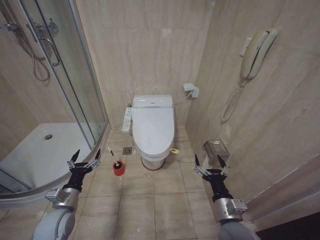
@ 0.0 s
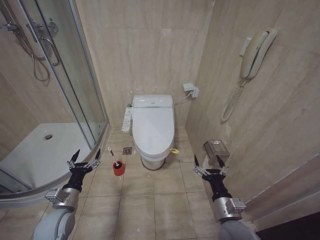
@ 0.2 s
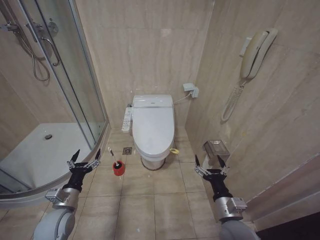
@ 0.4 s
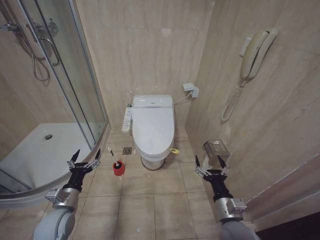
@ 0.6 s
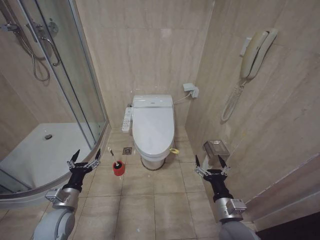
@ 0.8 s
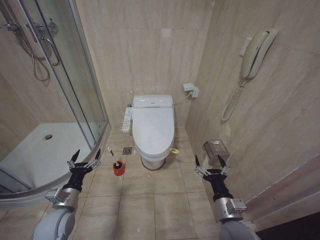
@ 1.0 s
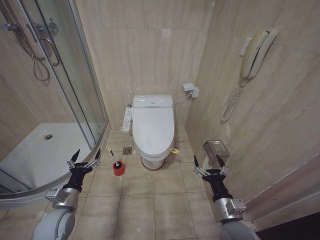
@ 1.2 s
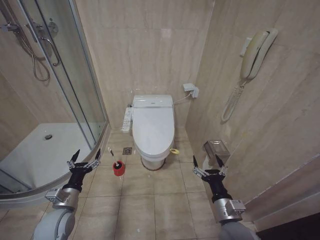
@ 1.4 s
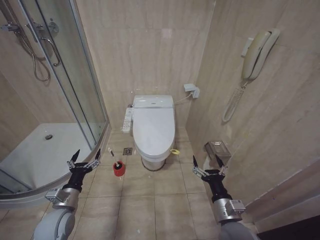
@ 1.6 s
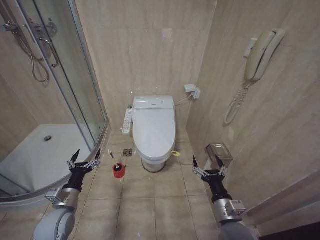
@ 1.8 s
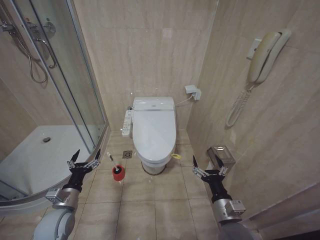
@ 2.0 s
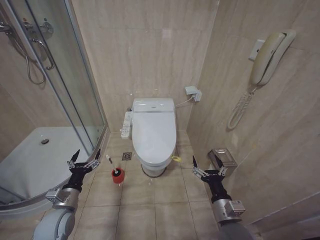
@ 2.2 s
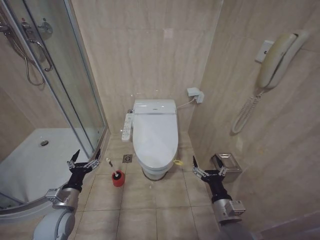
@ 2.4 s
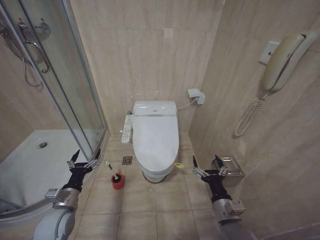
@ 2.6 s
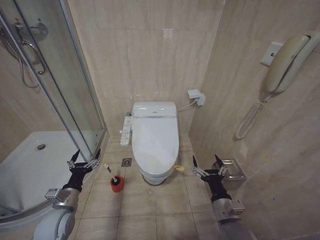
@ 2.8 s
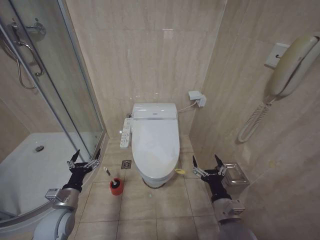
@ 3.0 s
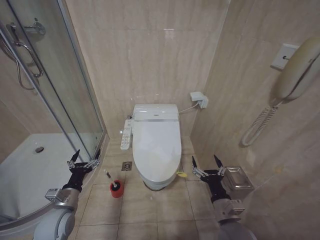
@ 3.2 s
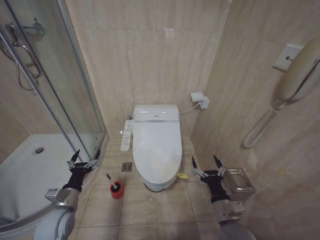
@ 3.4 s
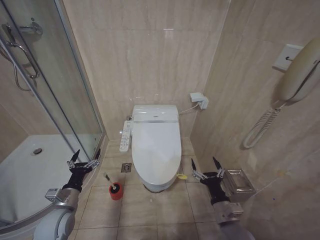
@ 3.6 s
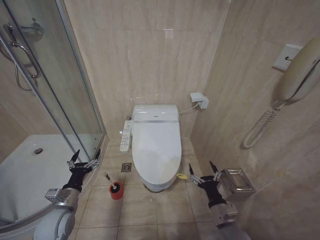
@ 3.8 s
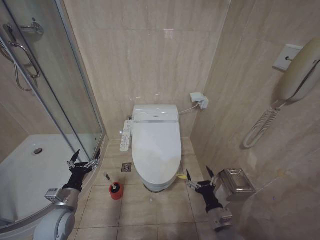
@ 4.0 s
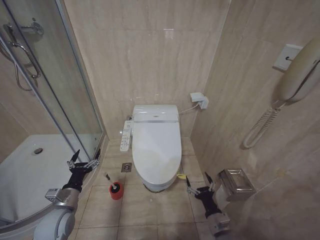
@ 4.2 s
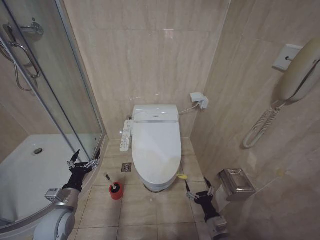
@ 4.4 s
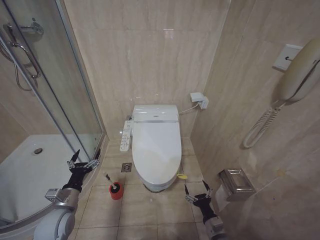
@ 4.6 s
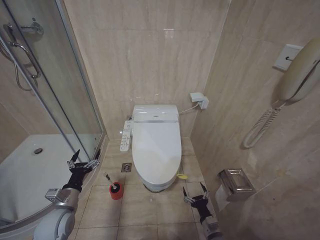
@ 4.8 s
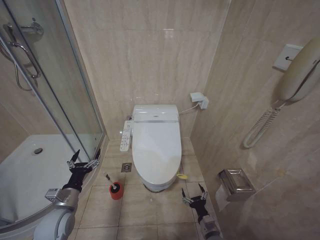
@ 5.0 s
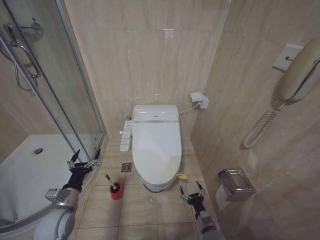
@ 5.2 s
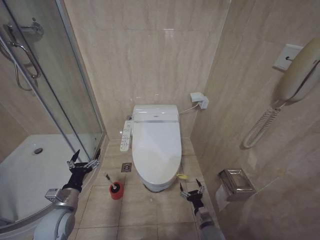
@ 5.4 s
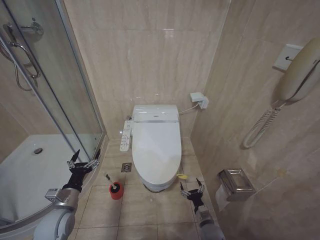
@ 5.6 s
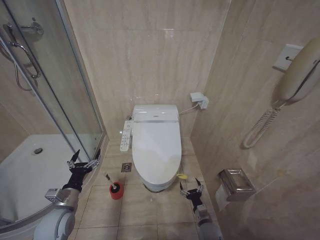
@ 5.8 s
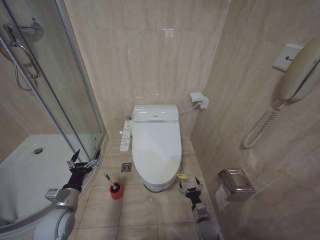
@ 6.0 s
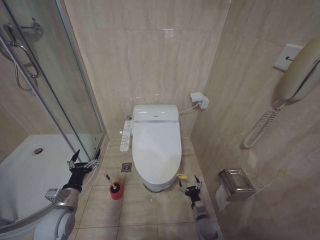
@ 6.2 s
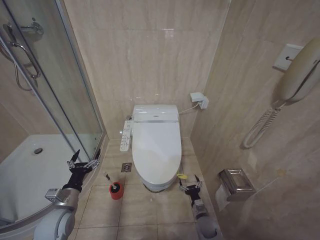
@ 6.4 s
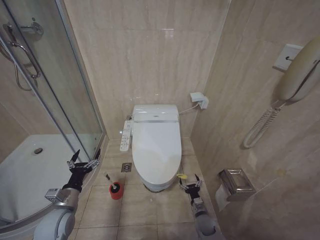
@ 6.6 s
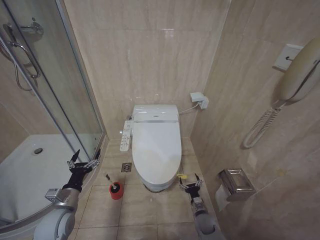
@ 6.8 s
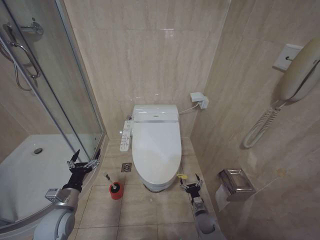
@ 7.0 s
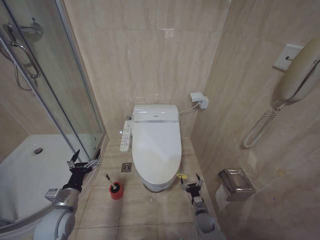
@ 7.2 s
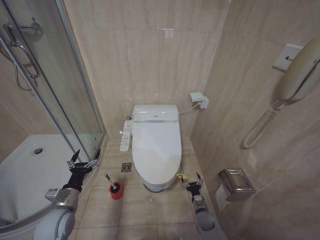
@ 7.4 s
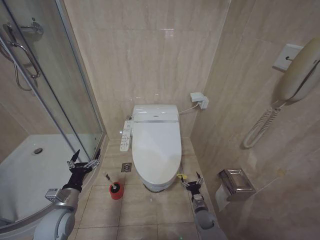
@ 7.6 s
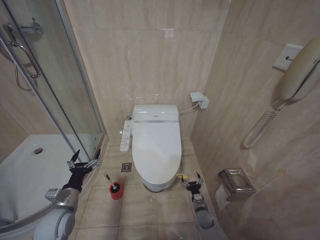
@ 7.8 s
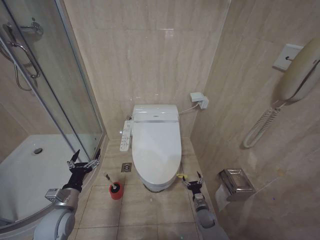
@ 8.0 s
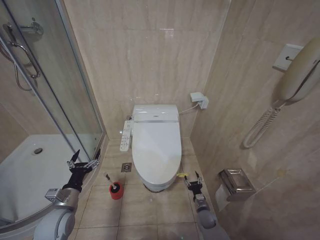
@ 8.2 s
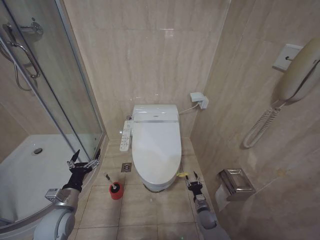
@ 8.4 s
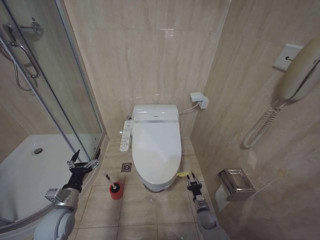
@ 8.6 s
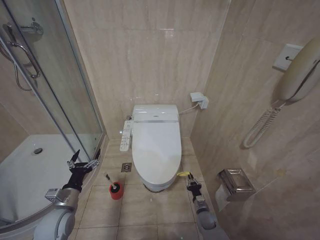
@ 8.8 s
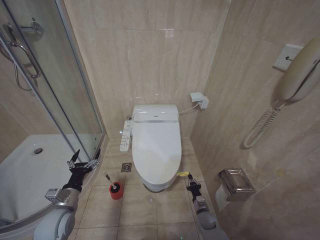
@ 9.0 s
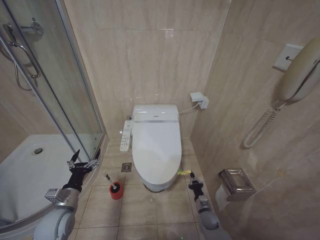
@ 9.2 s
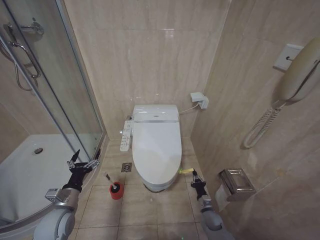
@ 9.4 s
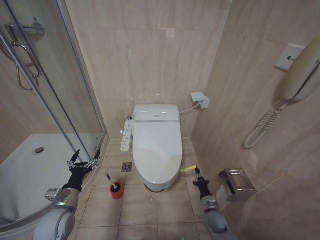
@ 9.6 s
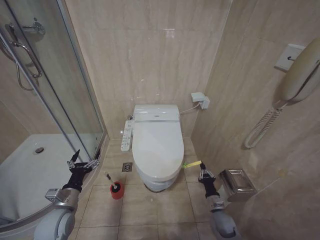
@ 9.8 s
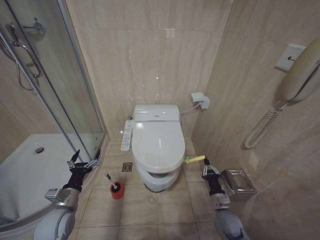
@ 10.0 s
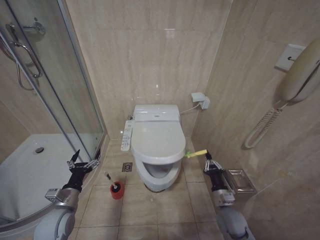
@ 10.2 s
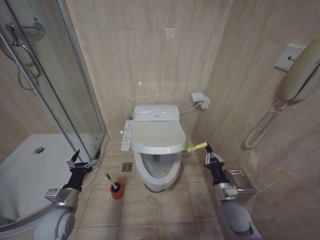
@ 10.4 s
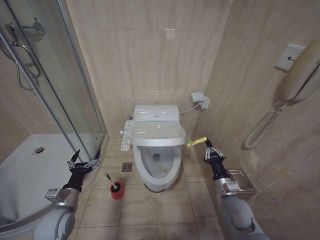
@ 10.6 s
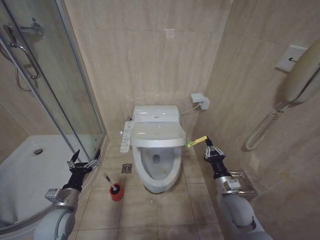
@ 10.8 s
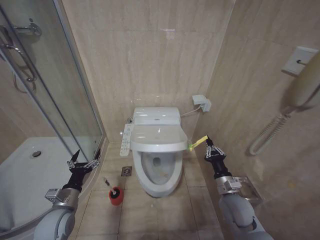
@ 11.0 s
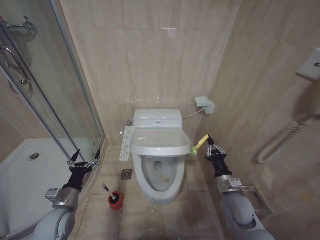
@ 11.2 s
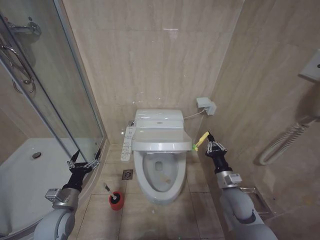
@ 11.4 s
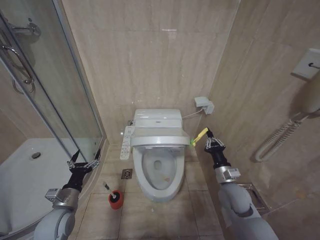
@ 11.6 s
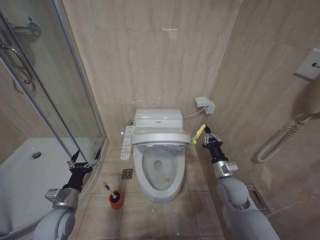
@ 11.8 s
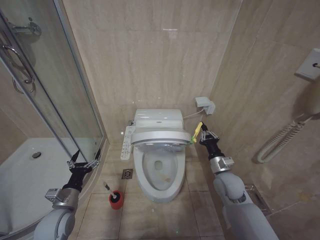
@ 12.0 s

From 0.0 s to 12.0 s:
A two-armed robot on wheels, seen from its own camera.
Task of the whole recording: Open the toilet lid, clean the toilet bowl with a toilet brush, close the toilet lid, and flush.
From 1.6 s to 3.0 s: Neither gripper changes place.
From 3.0 s to 4.4 s: The right gripper goes approximately 15 cm downward.
From 4.4 s to 6.0 s: The right gripper moves downward and forward, approximately 15 cm.
From 9.0 s to 10.4 s: The right gripper travels upward by approximately 25 cm.
From 10.4 s to 12.0 s: The right gripper travels forward and upward by approximately 10 cm.

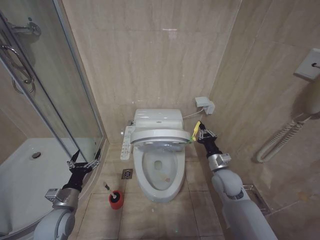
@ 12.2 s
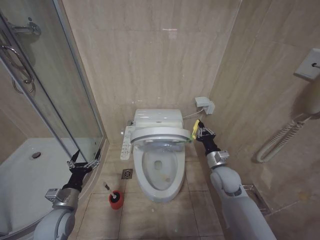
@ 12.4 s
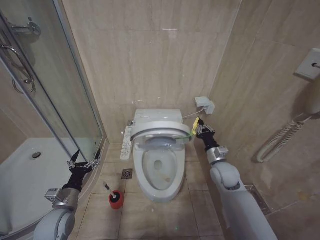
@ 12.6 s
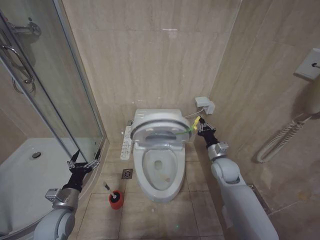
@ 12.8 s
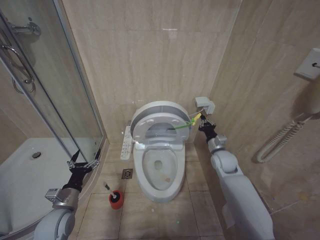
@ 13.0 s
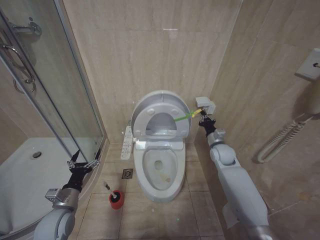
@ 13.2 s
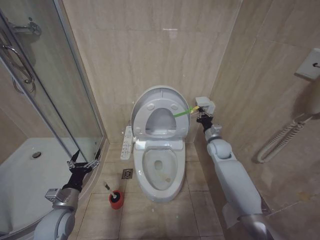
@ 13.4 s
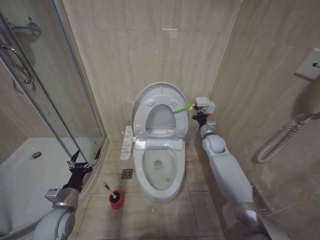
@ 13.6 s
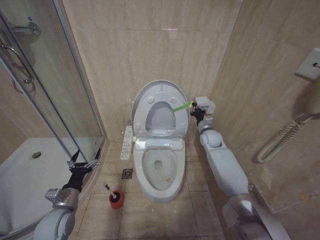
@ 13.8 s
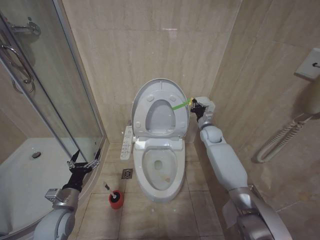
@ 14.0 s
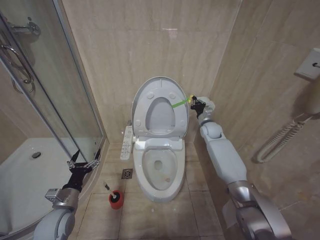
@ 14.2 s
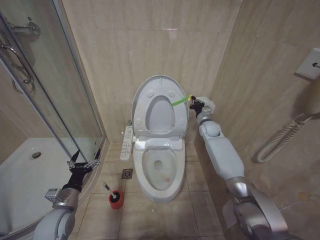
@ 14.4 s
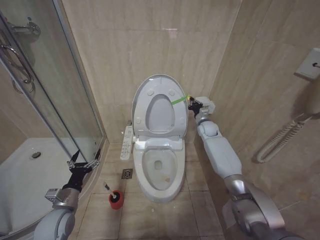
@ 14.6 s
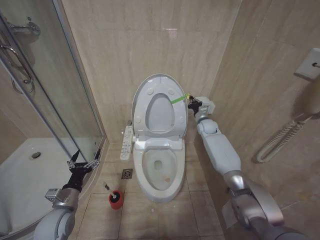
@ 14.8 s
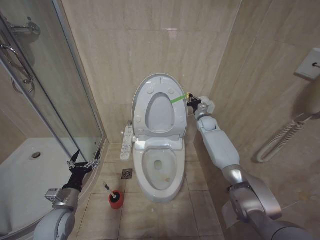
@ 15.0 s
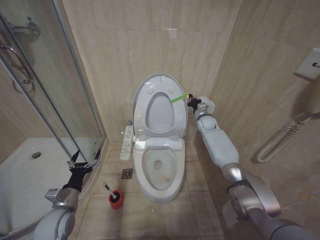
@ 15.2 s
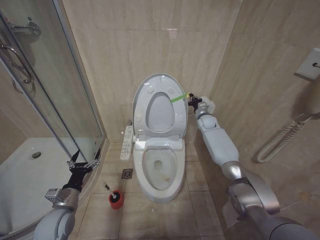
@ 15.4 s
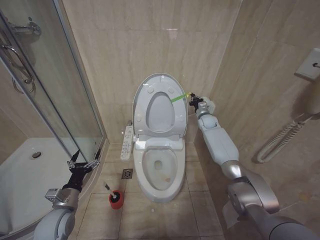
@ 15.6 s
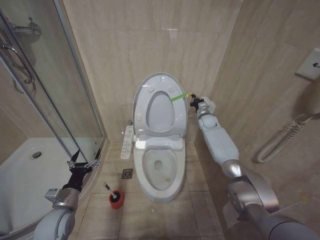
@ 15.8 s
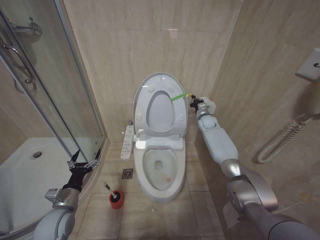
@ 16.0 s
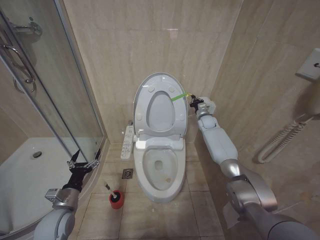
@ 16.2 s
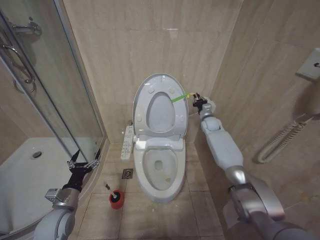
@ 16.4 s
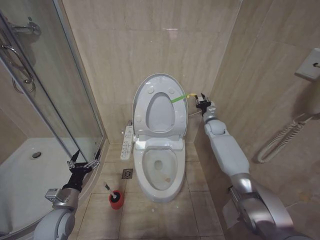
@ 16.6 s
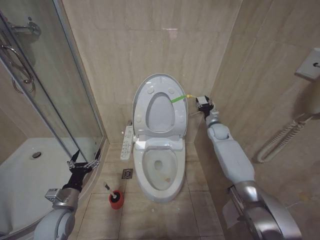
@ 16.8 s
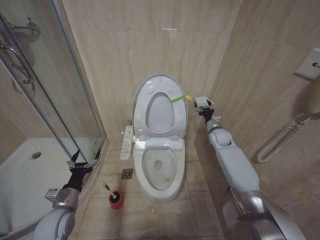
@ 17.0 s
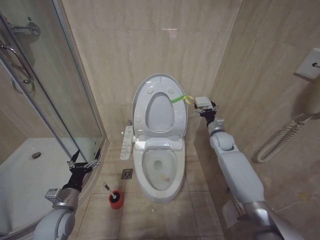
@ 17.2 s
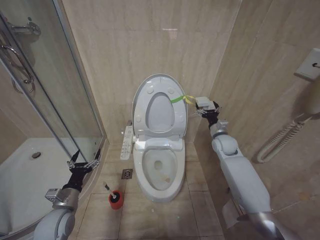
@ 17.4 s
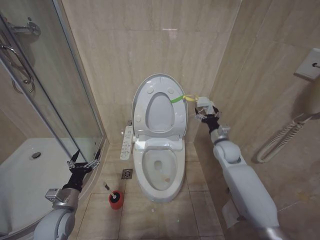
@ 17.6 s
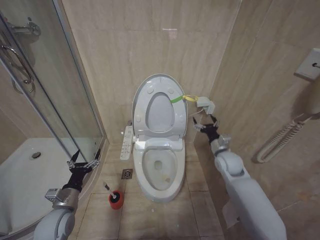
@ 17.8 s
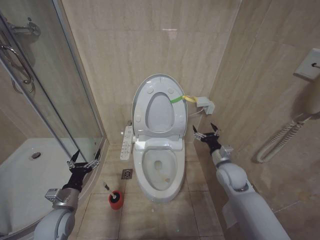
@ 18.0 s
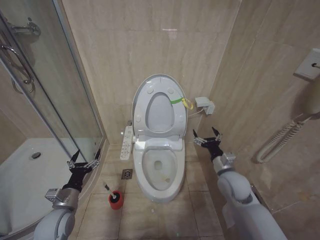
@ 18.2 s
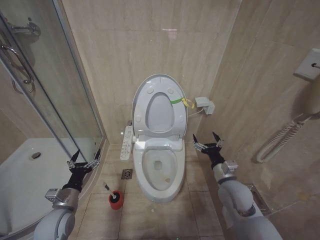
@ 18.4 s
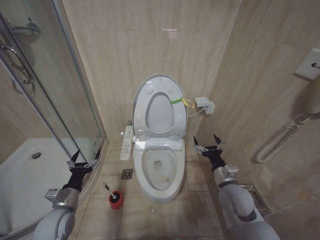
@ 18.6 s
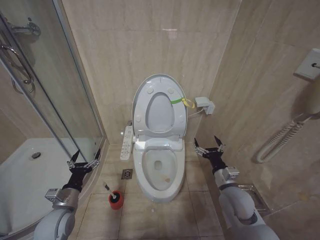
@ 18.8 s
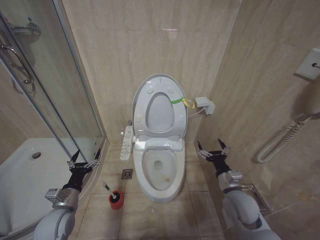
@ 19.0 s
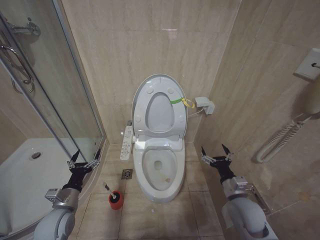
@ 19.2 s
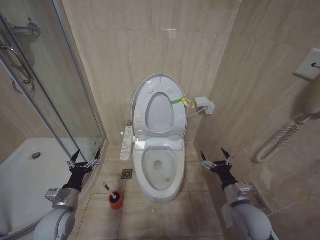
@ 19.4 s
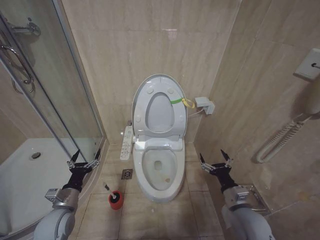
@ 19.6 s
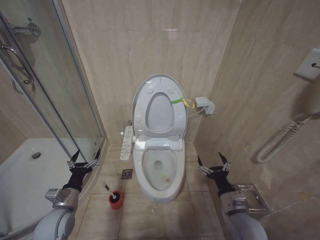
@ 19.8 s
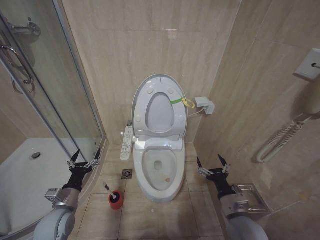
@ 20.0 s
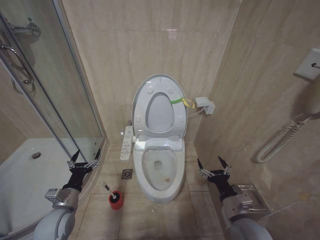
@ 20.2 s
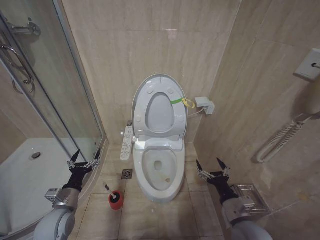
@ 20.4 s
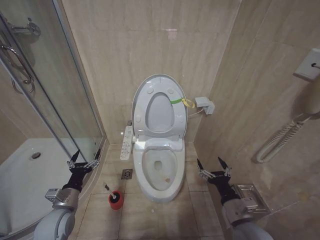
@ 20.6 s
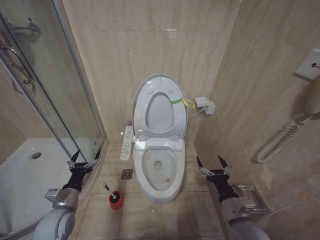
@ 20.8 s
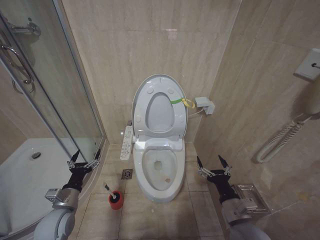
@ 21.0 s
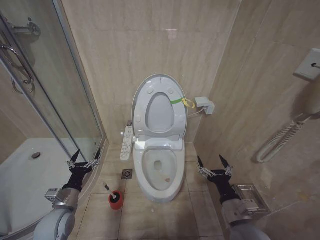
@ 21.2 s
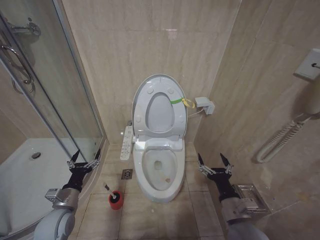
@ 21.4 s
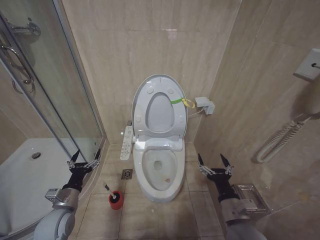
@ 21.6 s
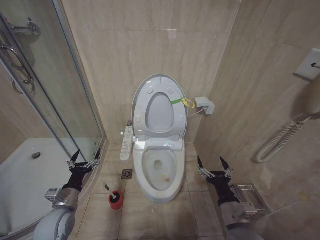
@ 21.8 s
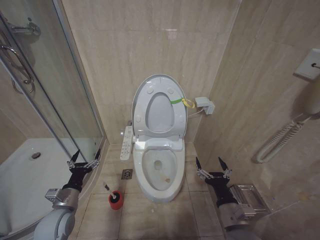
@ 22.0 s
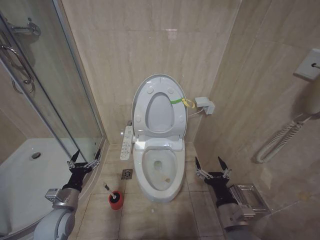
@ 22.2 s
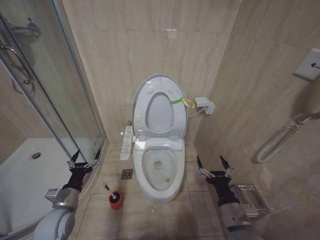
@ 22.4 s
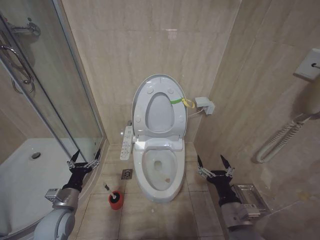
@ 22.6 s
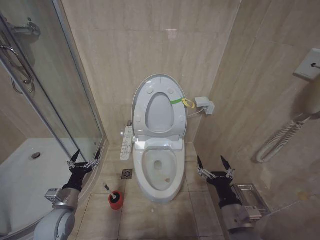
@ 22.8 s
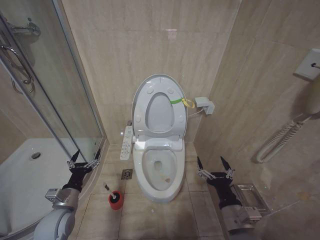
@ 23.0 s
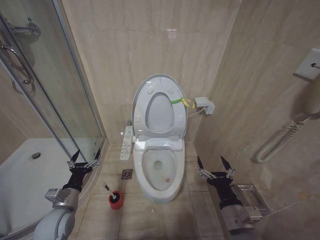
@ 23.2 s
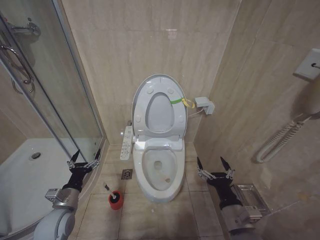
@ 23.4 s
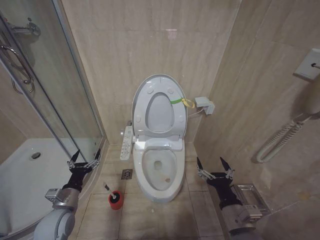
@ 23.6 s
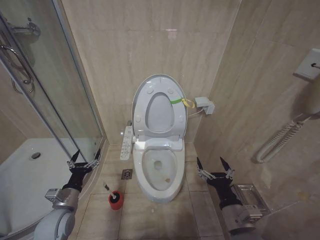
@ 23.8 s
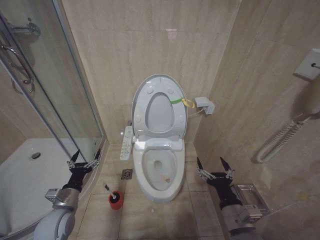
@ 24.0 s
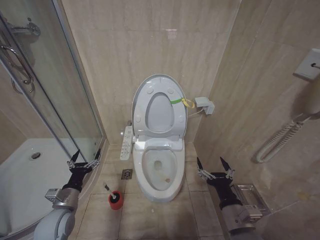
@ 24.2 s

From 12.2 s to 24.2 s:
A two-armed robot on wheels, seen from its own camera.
Task of the whole recording: Open the toilet lid, clean the toilet bowl with a toilet brush, close the toilet lid, and flush.
From 12.2 s to 13.8 s: The right gripper shifts roughly 20 cm forward.
From 13.8 s to 15.2 s: The right gripper goes approximately 10 cm forward.
From 15.2 s to 16.6 s: There are only small adjustments of the grippers.
From 16.6 s to 18.2 s: The right gripper moves backward, roughly 25 cm, and opens its fingers.
From 18.2 s to 19.8 s: The right gripper shifts about 15 cm backward and downward.
From 19.8 s to 21.2 s: The grippers stay close to where they were, moving slightly.
